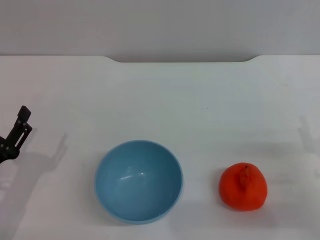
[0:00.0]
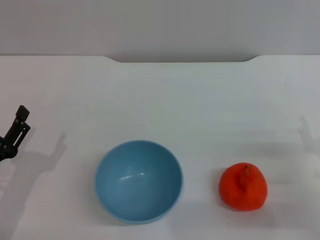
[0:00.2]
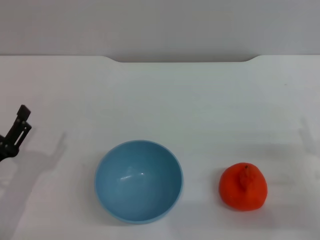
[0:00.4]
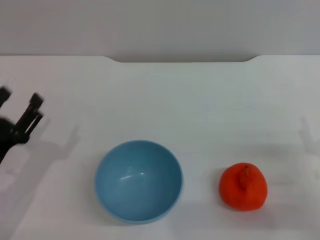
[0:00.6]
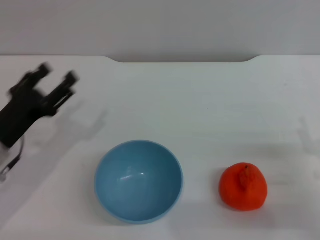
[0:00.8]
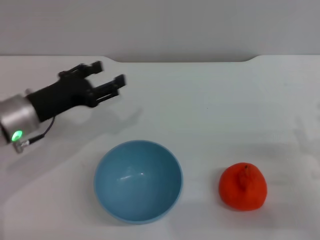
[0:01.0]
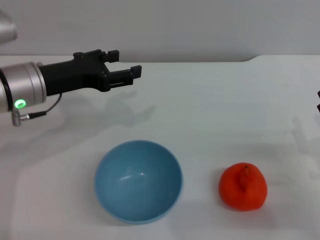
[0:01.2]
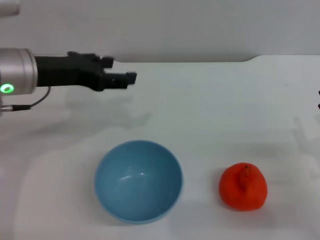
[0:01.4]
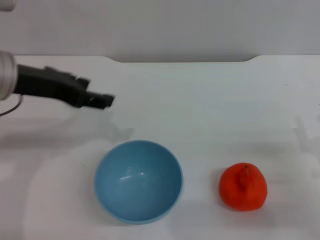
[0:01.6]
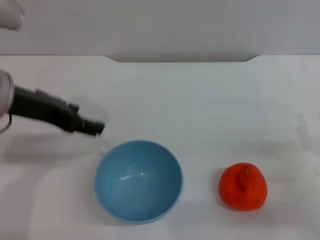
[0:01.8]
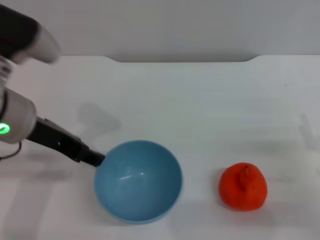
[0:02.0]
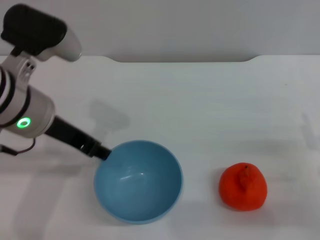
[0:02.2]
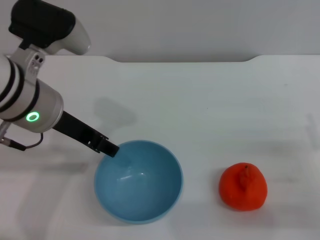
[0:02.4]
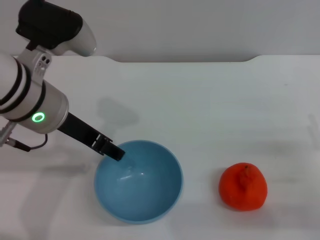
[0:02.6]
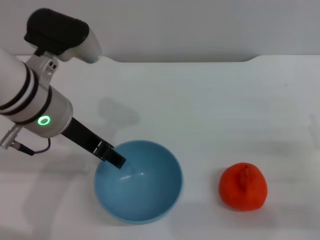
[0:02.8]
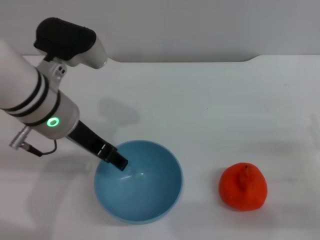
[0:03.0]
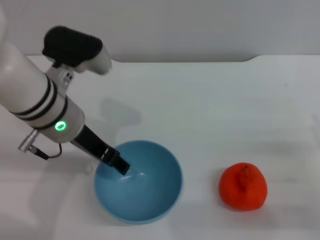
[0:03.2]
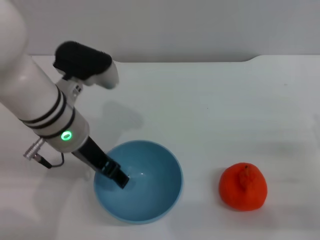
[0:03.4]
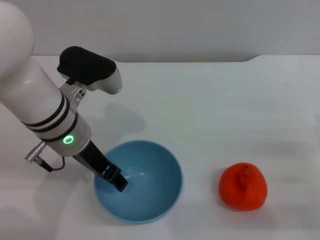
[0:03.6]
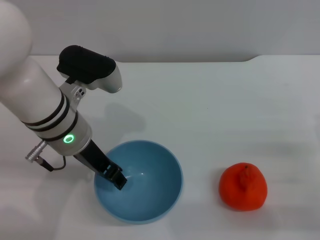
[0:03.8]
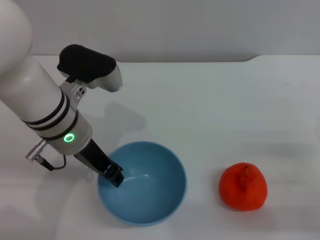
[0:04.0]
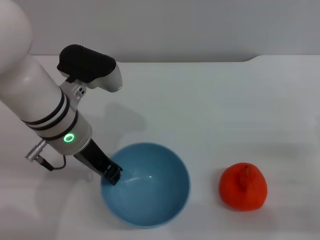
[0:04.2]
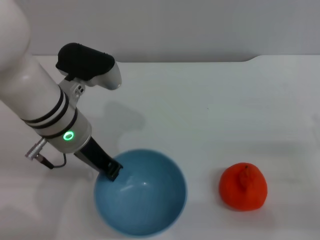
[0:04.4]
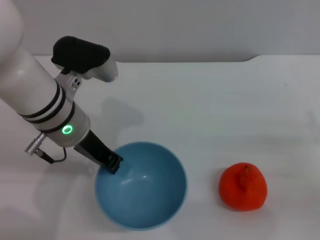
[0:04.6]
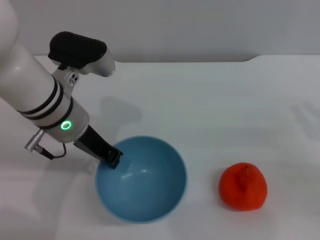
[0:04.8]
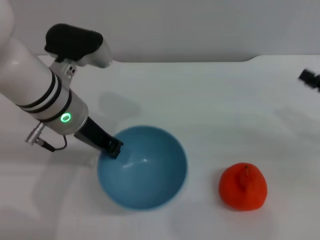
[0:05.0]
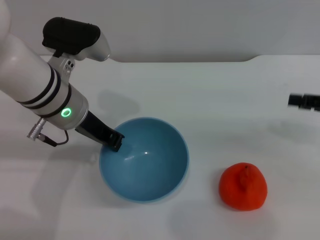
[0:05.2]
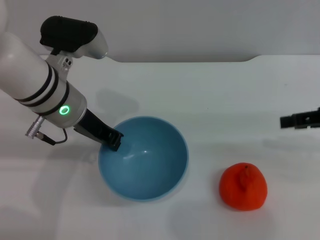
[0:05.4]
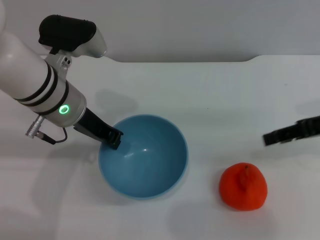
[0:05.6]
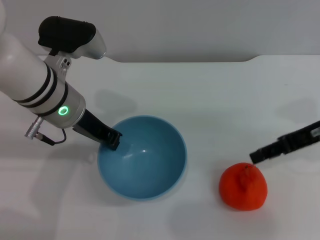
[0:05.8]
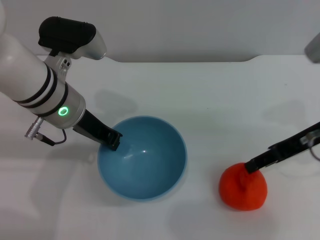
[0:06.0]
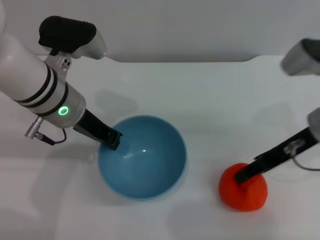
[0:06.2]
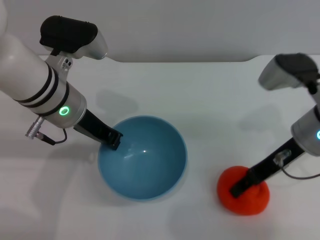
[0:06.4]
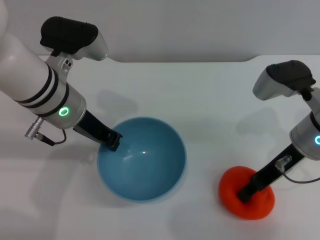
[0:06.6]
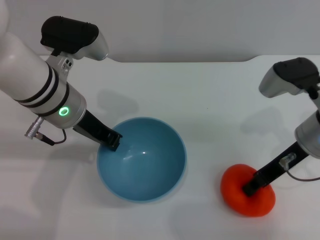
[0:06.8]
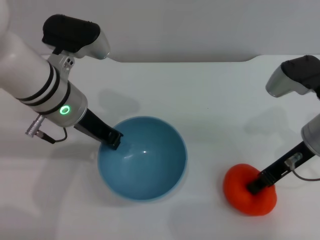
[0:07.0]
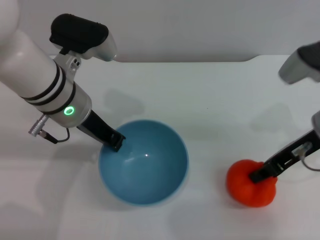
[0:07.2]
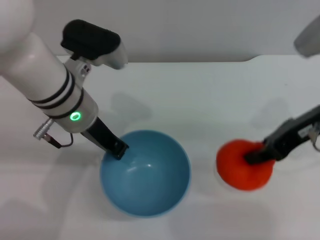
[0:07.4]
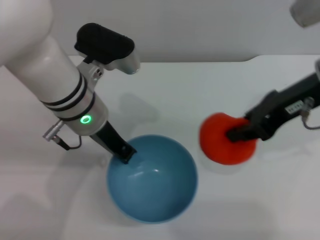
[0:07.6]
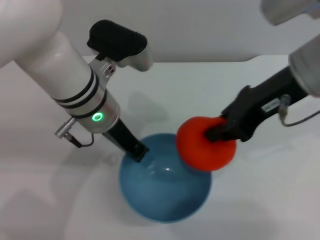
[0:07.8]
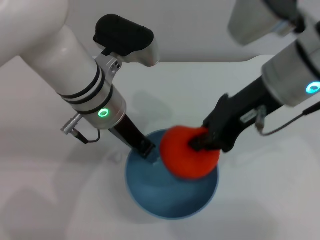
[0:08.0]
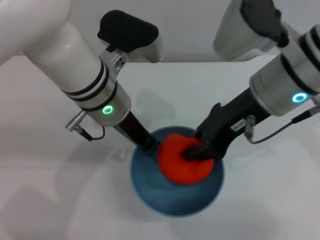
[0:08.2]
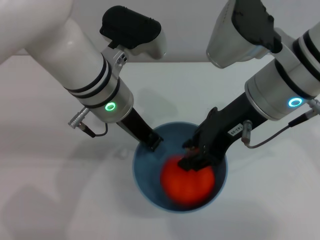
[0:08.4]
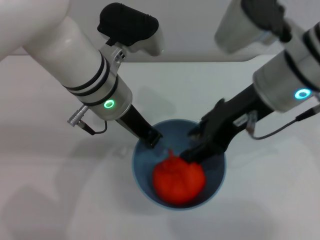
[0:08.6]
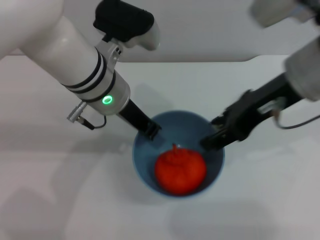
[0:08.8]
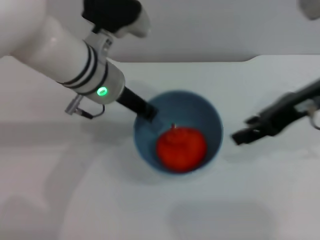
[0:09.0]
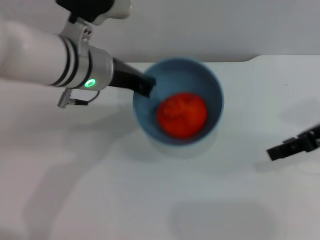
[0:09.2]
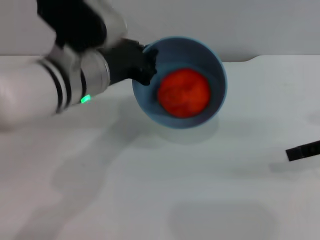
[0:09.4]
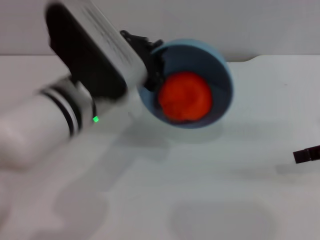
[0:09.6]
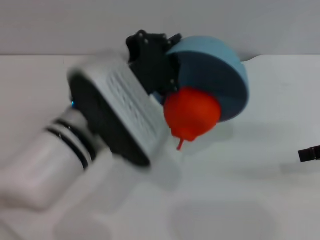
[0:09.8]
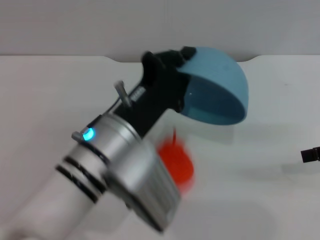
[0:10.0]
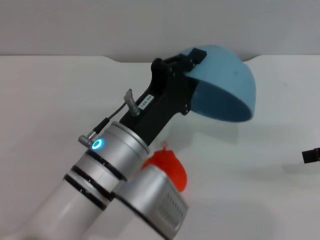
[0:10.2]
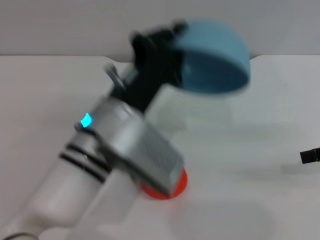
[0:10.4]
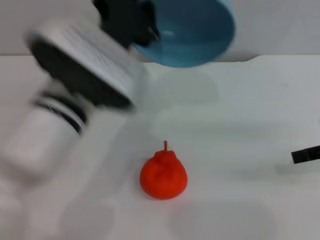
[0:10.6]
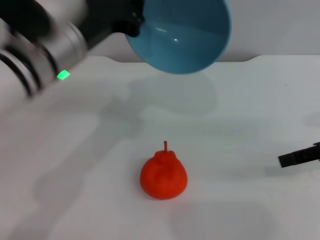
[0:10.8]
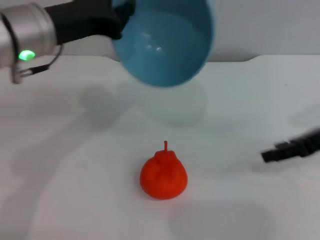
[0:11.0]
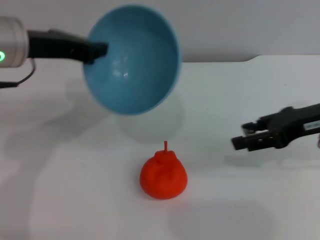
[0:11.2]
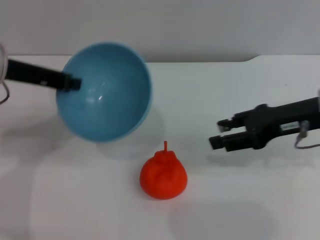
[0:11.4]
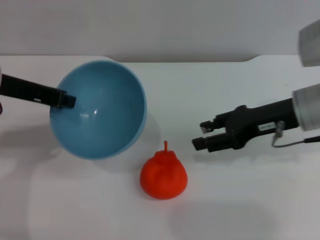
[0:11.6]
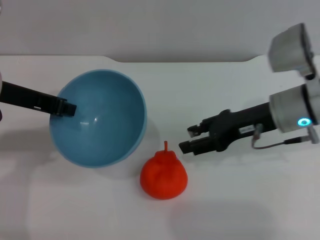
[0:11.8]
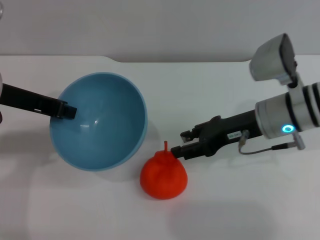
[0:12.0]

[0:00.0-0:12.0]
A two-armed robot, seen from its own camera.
Task of the whole recording: put the orange into the blue bowl and pour it out repeatedly.
Step, 0:00.0 to 0:05.4: Pick up the bowl with the left gripper.
Step, 0:05.8 to 0:07.4: Pick up the orange with the right gripper.
Step, 0:07.6 to 0:08.8: Place the orange into the bowl.
Step, 0:09.0 to 0:10.2: Pour the orange out of the bowl.
0:00.0 to 0:01.6: The left gripper shifts roughly 25 cm upward and forward.
0:01.6 to 0:03.0: The left gripper goes approximately 5 cm to the right.
0:03.0 to 0:04.4: The left gripper closes up.
0:04.4 to 0:06.0: The right gripper travels upward, forward and to the left by about 20 cm.
0:06.0 to 0:07.6: The right gripper moves upward, some 10 cm, and closes.
0:07.6 to 0:09.0: The right gripper goes to the left and returns, some 5 cm each way, and opens its fingers.
0:09.0 to 0:10.4: The right gripper moves to the right and downward, approximately 15 cm, while the left gripper shifts some 10 cm backward.
0:10.4 to 0:12.0: The right gripper heads to the left, forward and downward, covering some 20 cm; the left gripper moves to the left, upward and forward, some 20 cm.

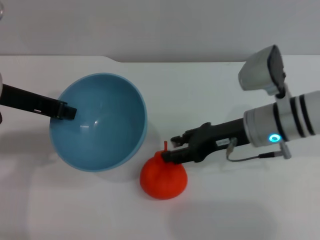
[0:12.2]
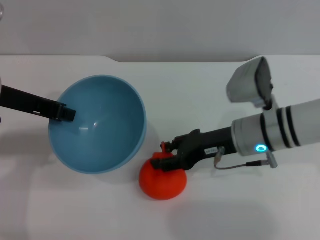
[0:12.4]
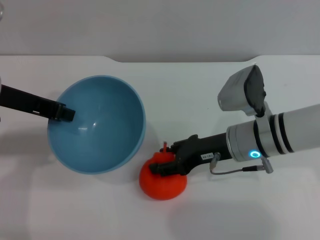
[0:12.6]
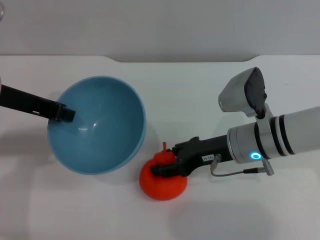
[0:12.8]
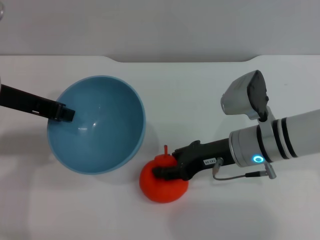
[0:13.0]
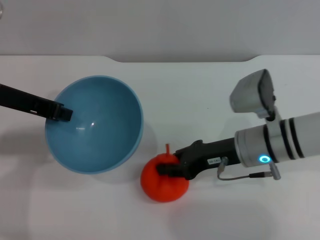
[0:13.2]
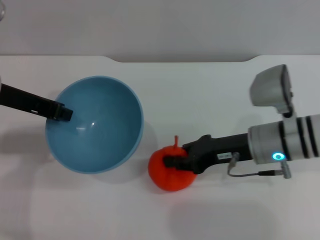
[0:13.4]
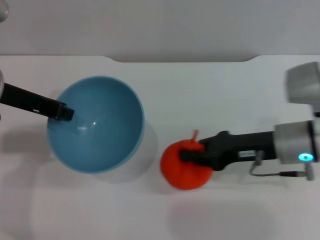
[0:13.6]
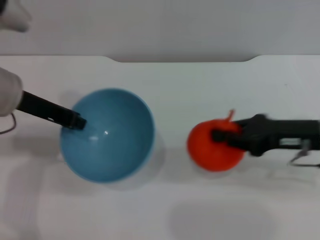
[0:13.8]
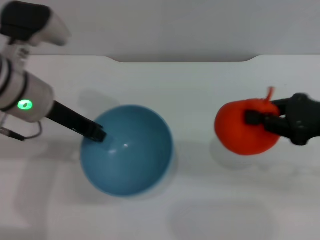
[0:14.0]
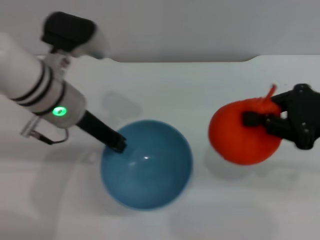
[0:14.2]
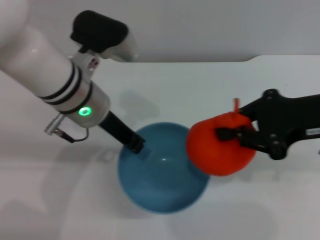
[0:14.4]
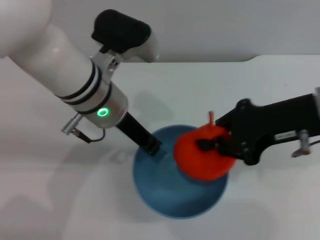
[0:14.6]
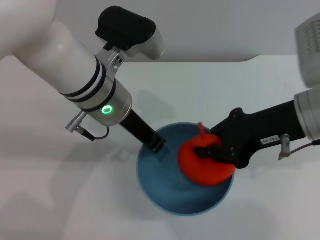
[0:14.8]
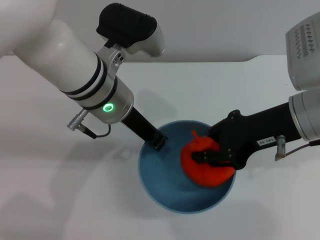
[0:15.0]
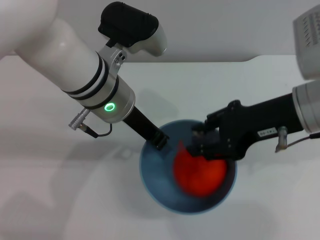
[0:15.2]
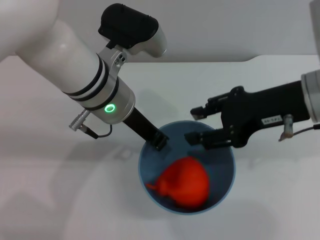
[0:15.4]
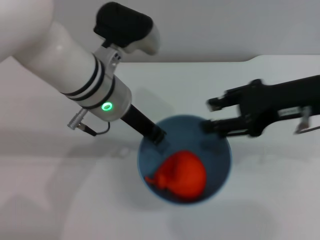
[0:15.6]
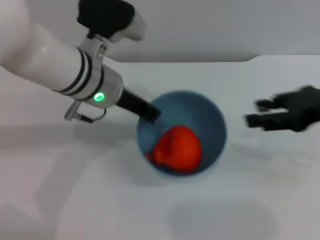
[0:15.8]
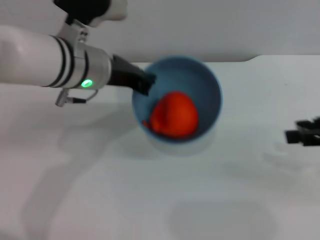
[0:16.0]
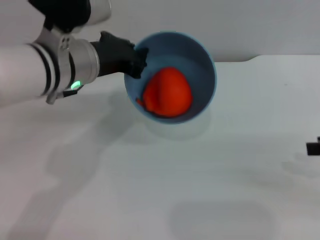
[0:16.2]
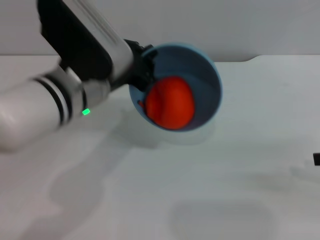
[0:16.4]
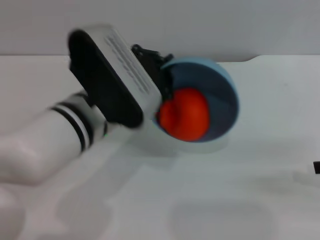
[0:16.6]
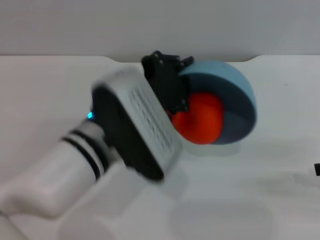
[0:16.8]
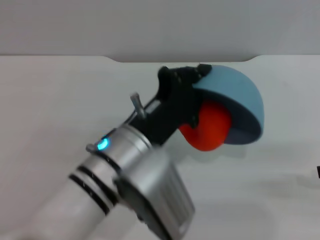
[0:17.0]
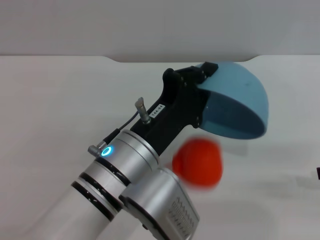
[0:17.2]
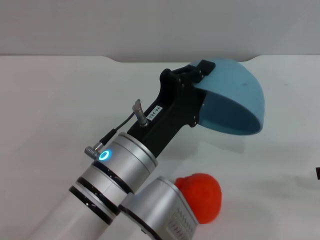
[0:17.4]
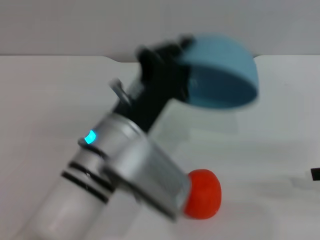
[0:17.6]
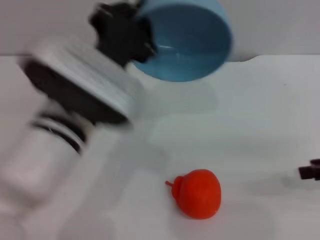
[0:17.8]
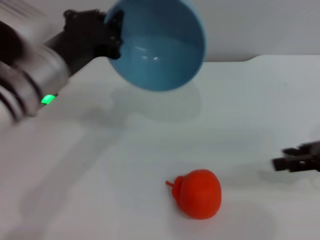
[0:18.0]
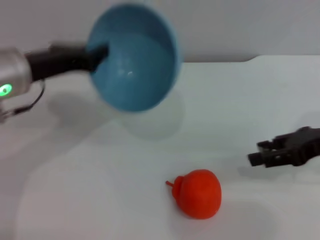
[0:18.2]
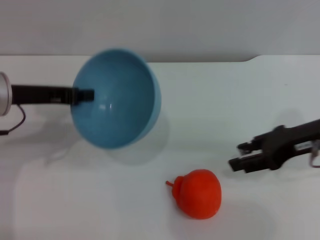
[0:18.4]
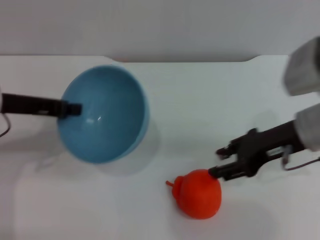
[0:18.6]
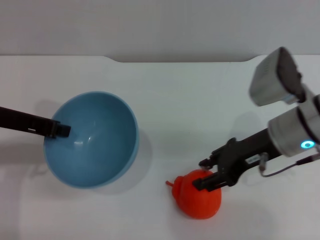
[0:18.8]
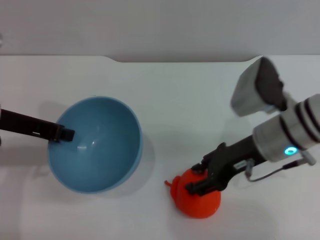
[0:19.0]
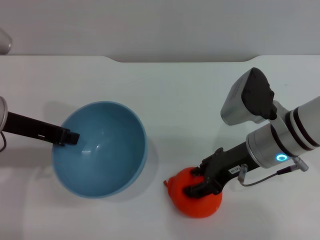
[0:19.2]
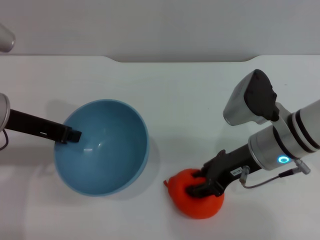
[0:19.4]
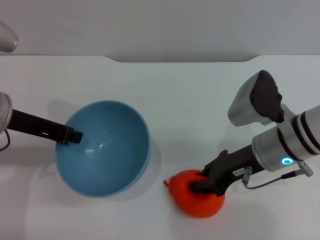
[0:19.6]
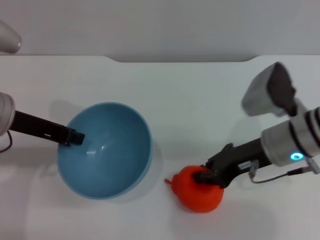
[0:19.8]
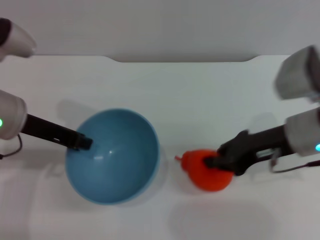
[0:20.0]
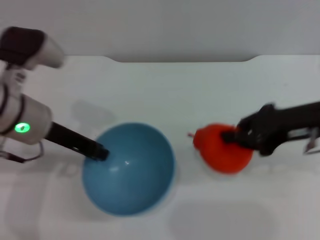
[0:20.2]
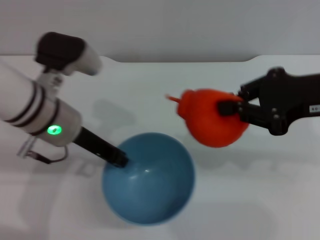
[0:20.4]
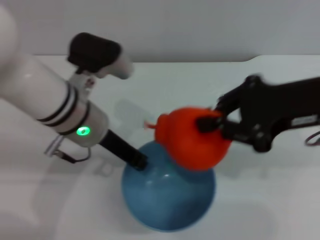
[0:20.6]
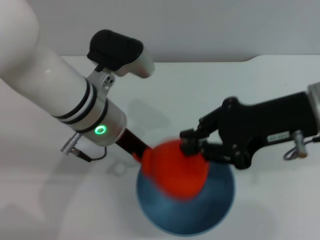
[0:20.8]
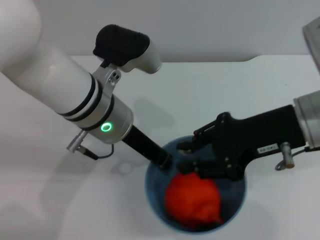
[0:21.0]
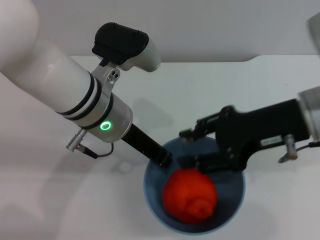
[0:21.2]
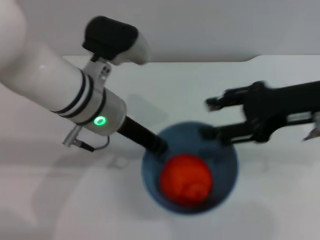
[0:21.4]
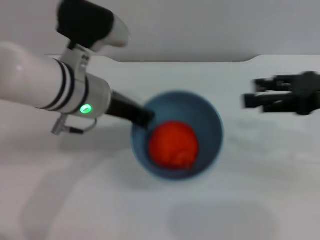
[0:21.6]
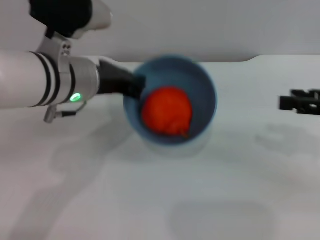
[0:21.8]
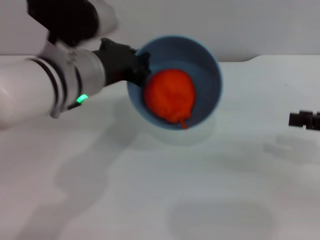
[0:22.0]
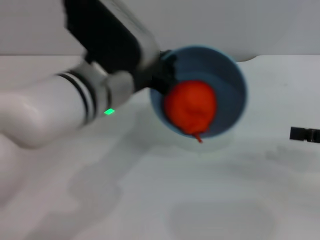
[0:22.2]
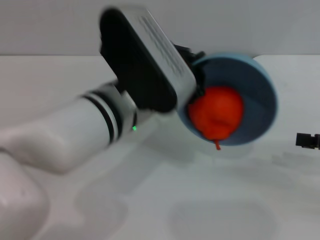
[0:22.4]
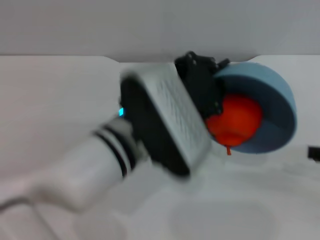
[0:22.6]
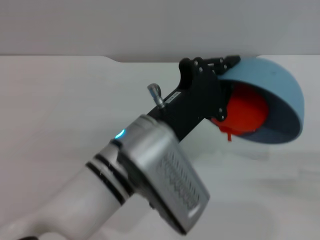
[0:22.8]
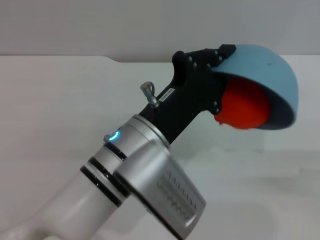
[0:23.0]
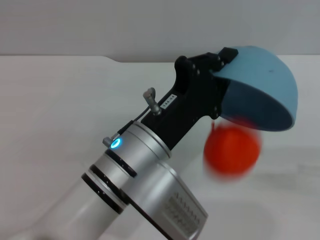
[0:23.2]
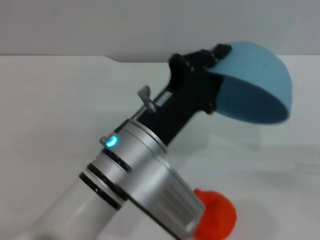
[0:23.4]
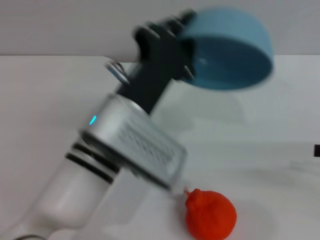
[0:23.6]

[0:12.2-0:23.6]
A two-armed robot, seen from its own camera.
Task of the whole recording: put the orange into the blue bowl and pour it out repeatedly.
Step, 0:14.0 to 0:15.4: Place the orange into the bowl.
Step, 0:15.8 to 0:17.4: Pour the orange out of the bowl.
Step, 0:17.6 to 0:20.2: Pick up the orange with the right gripper.
Step, 0:20.4 to 0:23.4: Pour the orange out of the bowl.
0:12.2 to 0:13.6: The right gripper changes place by about 5 cm, and closes up.
0:13.6 to 0:15.0: The right gripper goes approximately 10 cm upward. The left gripper moves to the right, about 15 cm.
0:15.0 to 0:16.4: The left gripper moves approximately 5 cm, while the right gripper moves to the right, roughly 15 cm, and opens.
0:17.8 to 0:19.4: The two grippers go roughly 15 cm to the left.
0:19.4 to 0:20.8: The right gripper shifts roughly 10 cm upward, and closes its fingers; the left gripper goes roughly 15 cm to the right.
0:20.8 to 0:22.2: The right gripper travels to the right and downward by approximately 15 cm, and opens its fingers.
0:22.2 to 0:23.6: The left gripper is displaced backward by approximately 5 cm.
